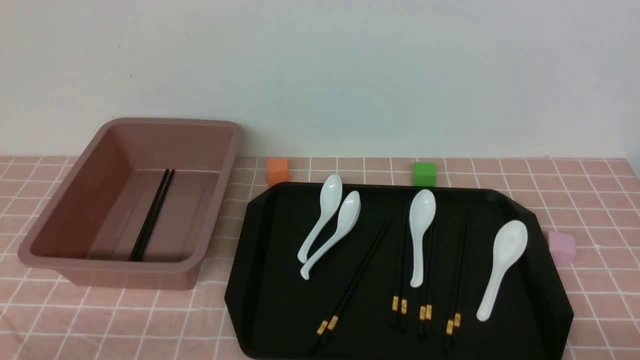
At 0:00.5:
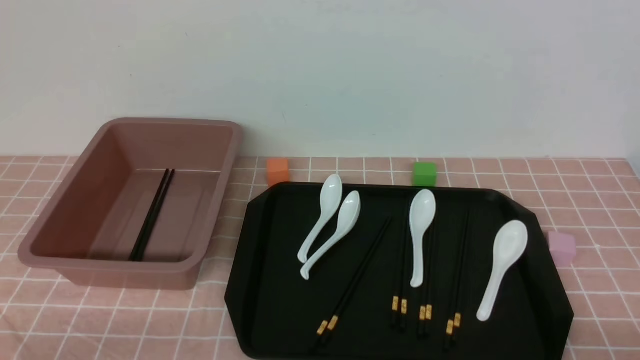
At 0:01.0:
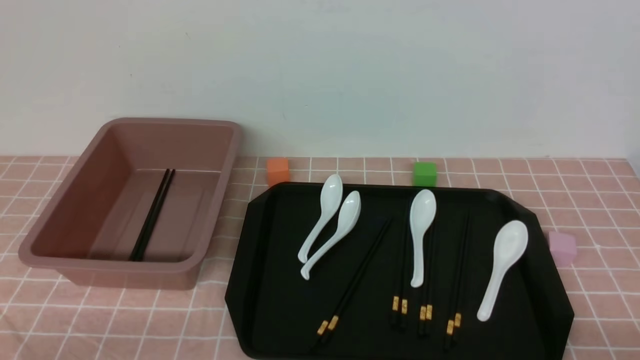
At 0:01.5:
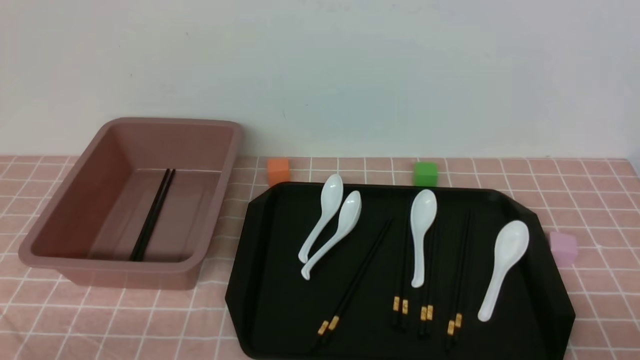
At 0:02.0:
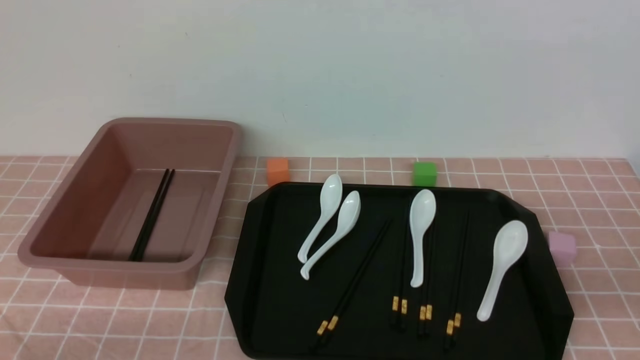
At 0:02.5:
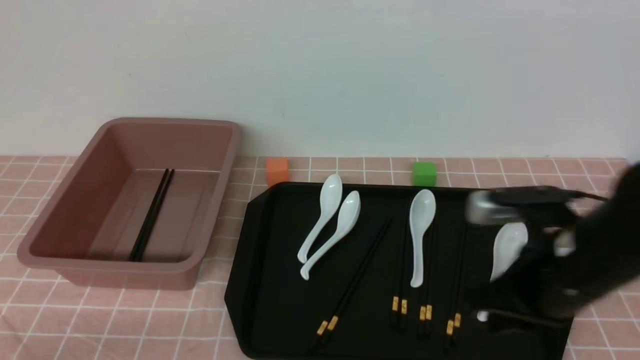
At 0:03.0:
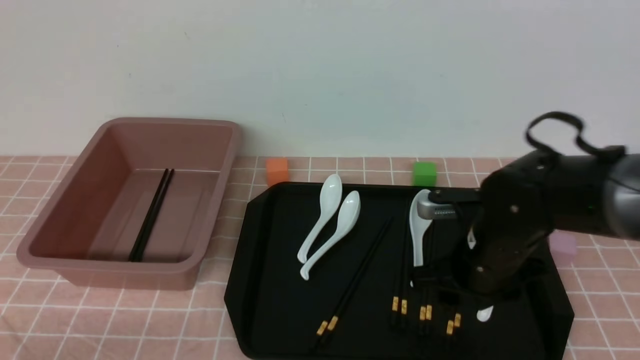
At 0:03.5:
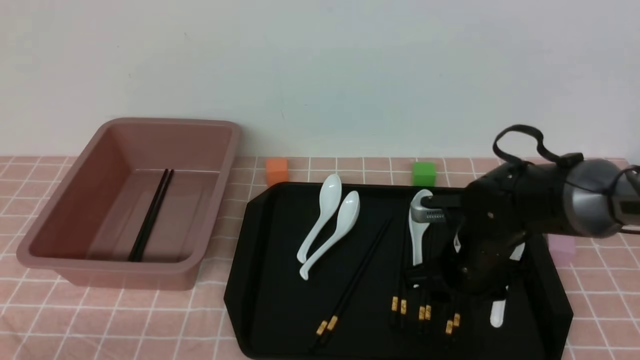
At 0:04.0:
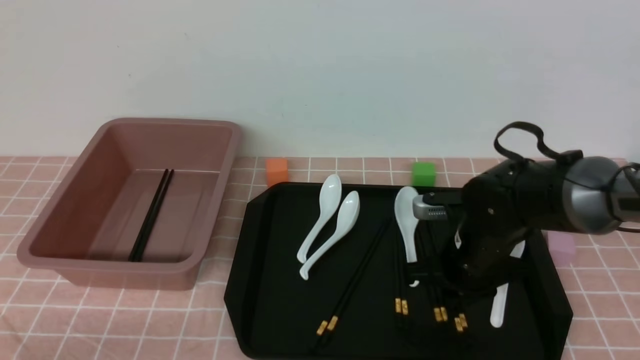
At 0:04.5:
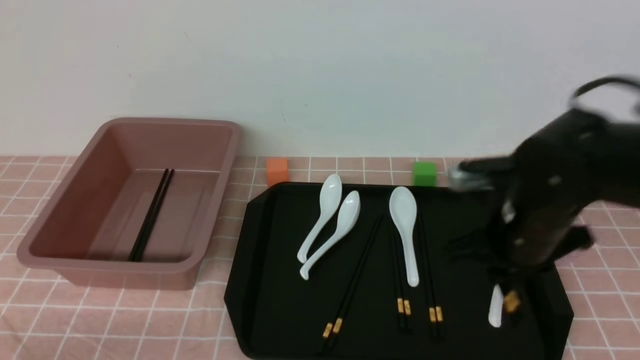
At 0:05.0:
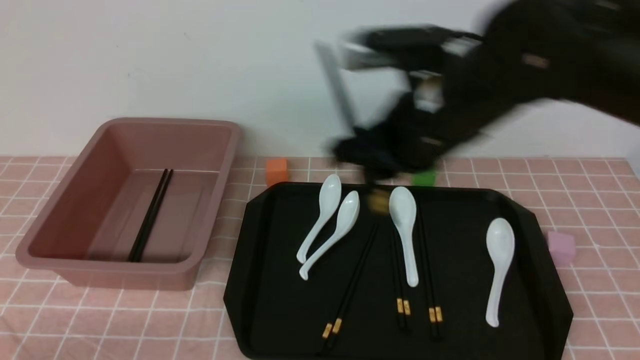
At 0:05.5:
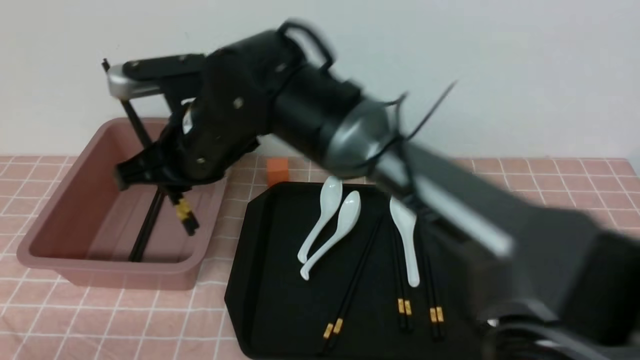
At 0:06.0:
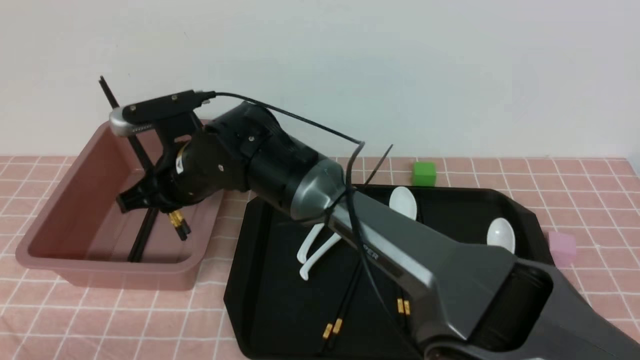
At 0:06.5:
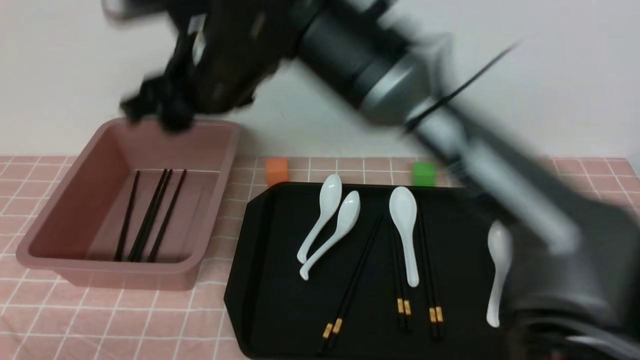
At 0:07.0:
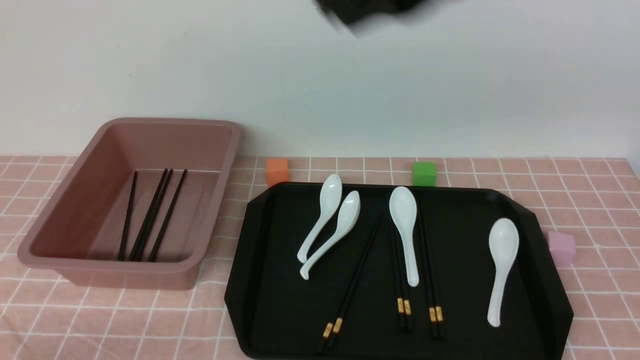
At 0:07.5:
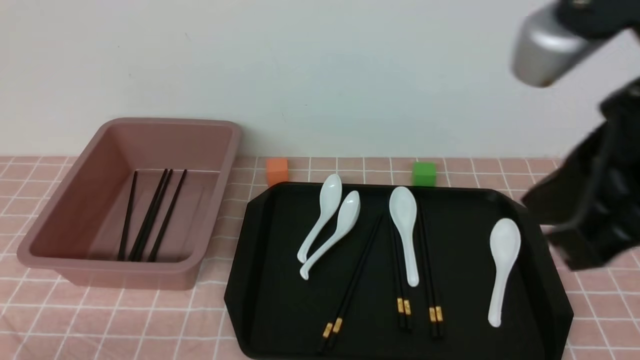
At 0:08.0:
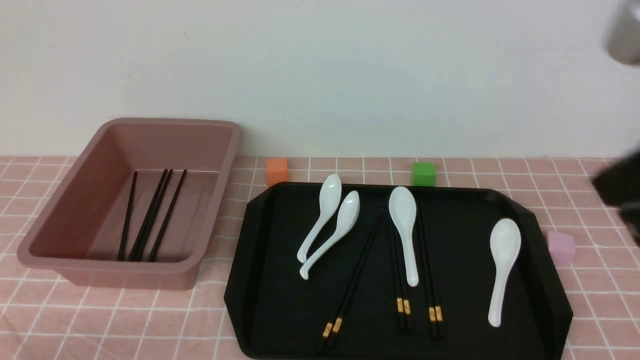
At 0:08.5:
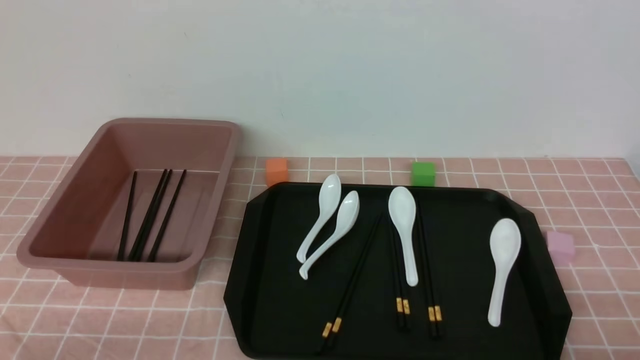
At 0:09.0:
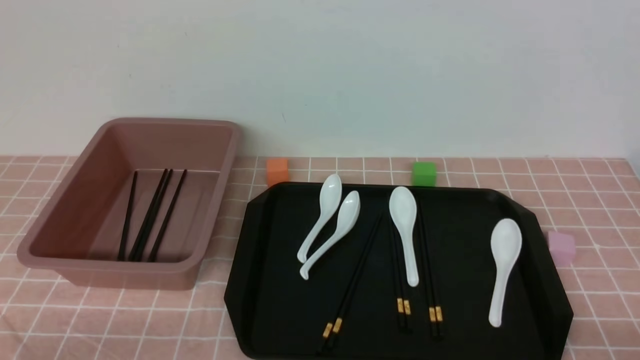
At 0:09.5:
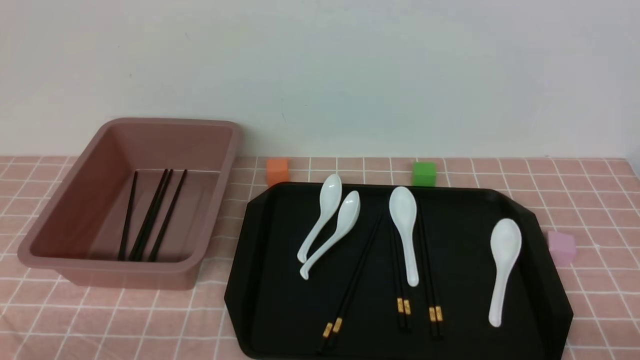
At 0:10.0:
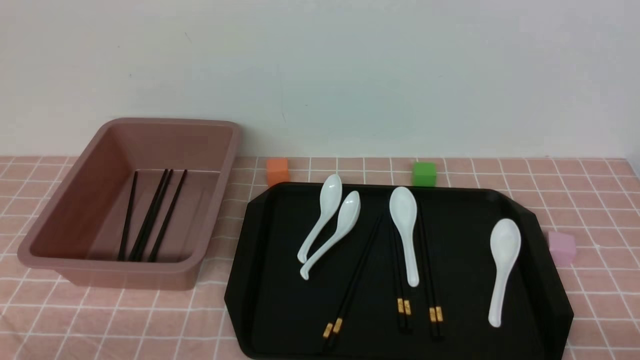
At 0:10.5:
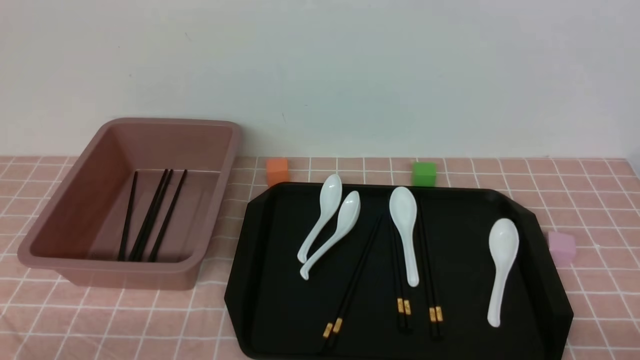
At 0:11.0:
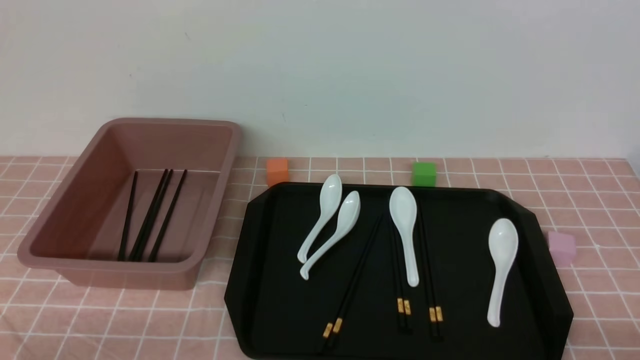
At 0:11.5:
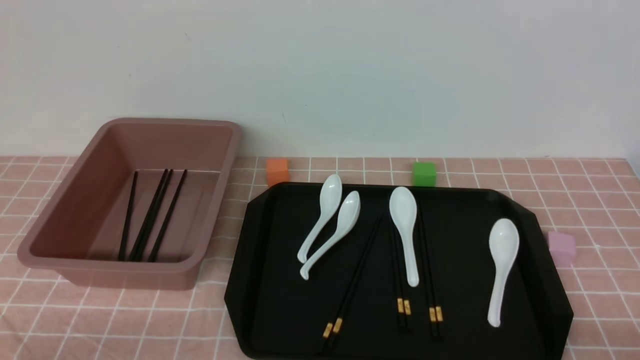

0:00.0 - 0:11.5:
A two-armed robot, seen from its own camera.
Step, 0:00.0 - 0:04.0: use the right arm to grab a pair of chopsticks.
Step, 0:04.5 - 0:06.0: use the right arm to put the chopsticks into the lunch box.
0:00.0 - 0:02.0: The right gripper goes approximately 15 cm upward and forward, and closes.
0:02.0 - 0:04.0: The right gripper shifts some 25 cm forward, downward and to the left, and opens, then closes again.
0:04.0 - 0:06.0: The right gripper heads to the left, covering some 30 cm.
0:06.0 - 0:07.5: The right gripper heads to the right, backward and upward, covering roughly 40 cm, and closes its fingers.
0:07.5 - 0:09.5: The right gripper heads downward and to the right, covering some 30 cm.
0:09.5 - 0:11.5: Neither gripper changes place.

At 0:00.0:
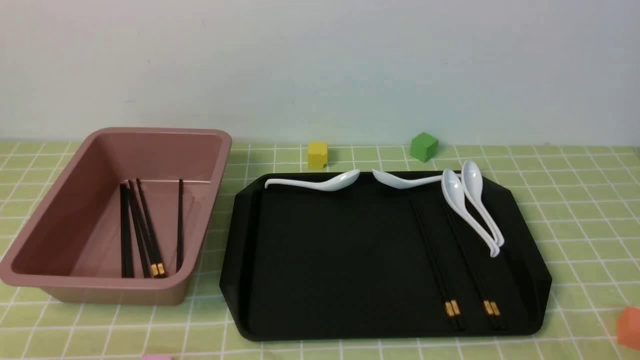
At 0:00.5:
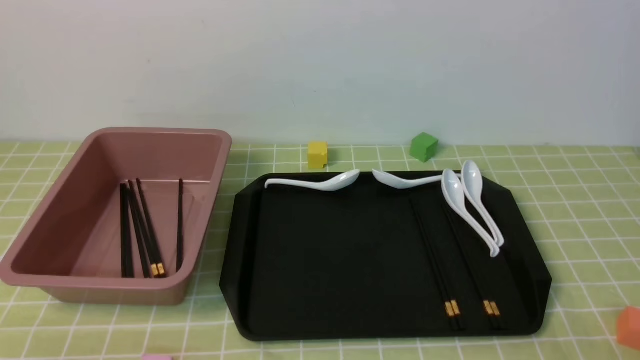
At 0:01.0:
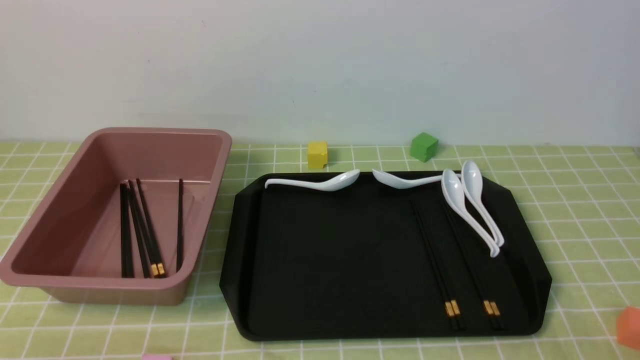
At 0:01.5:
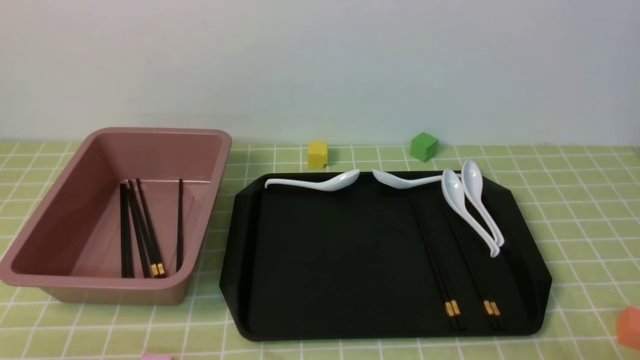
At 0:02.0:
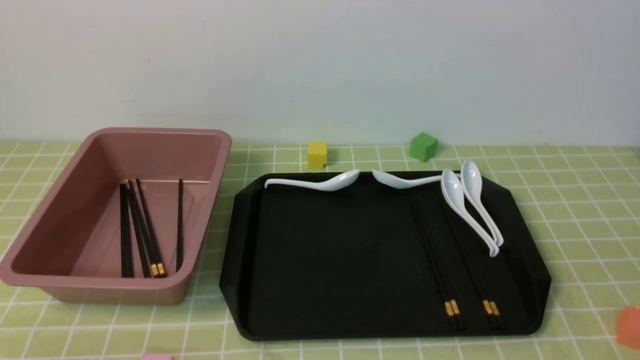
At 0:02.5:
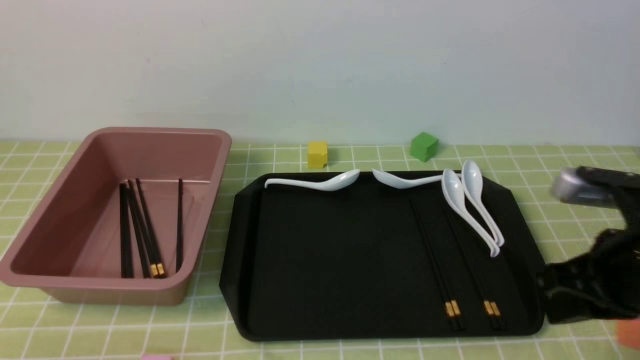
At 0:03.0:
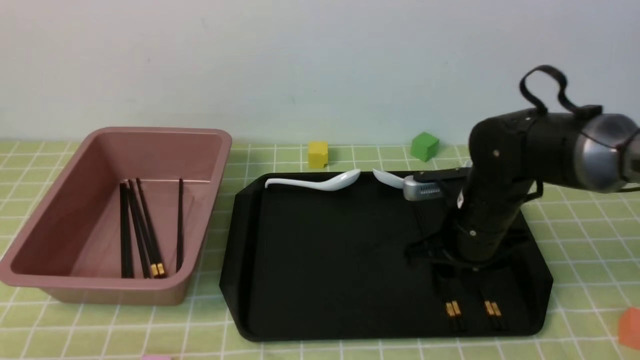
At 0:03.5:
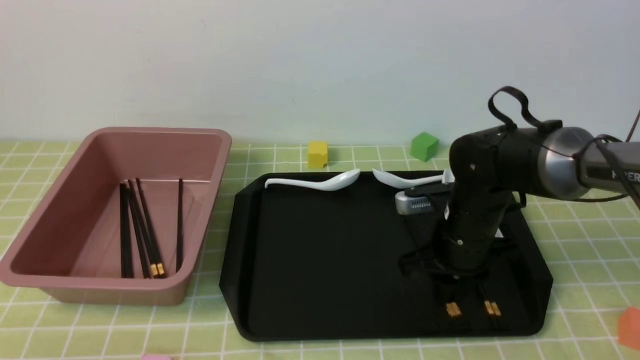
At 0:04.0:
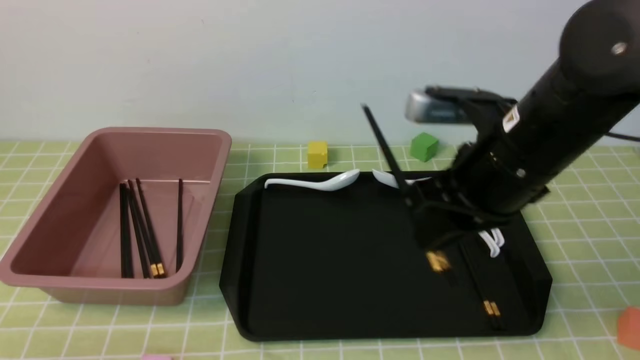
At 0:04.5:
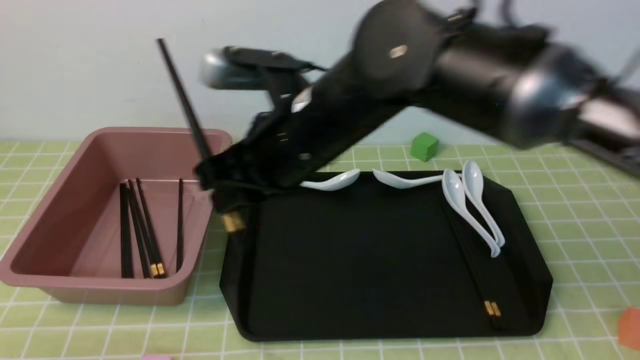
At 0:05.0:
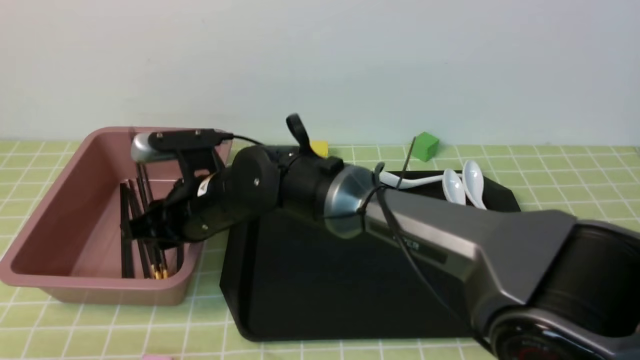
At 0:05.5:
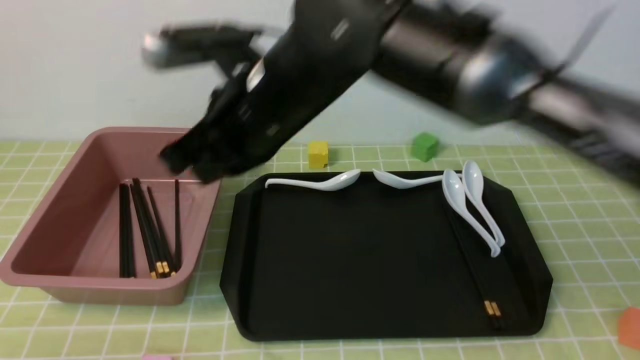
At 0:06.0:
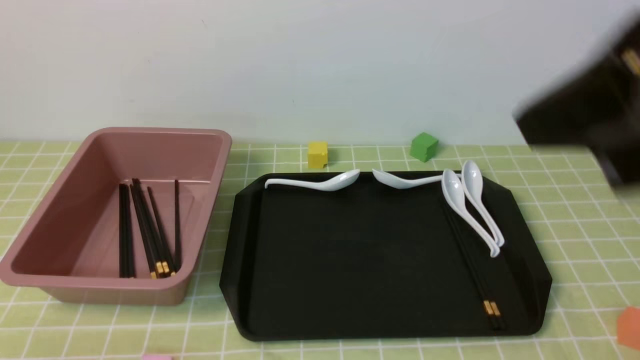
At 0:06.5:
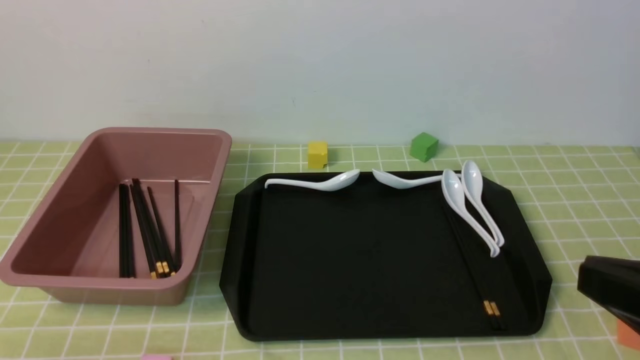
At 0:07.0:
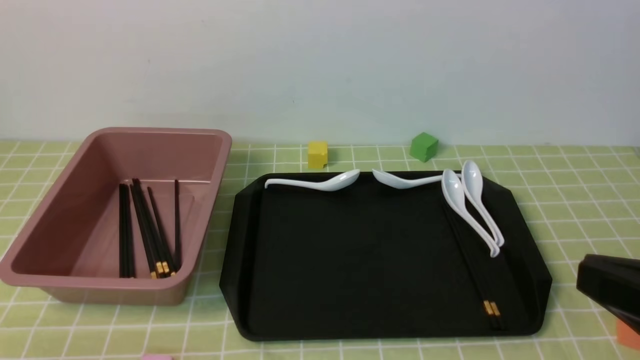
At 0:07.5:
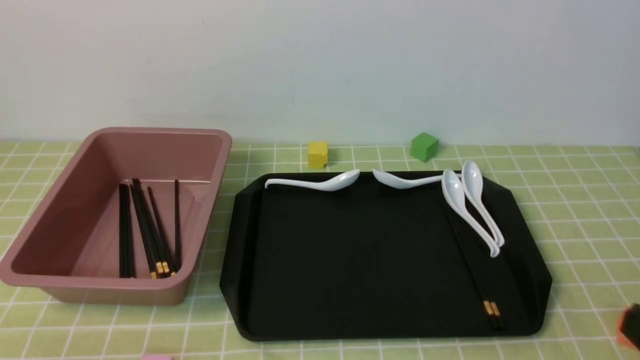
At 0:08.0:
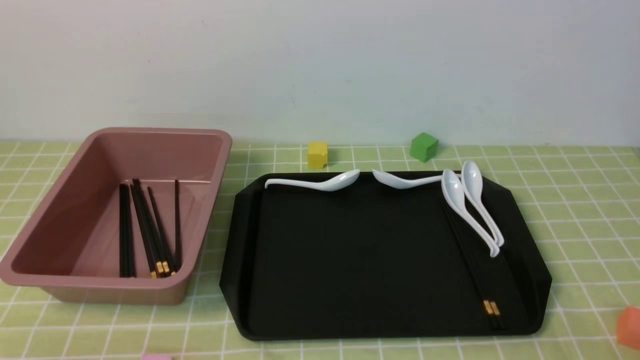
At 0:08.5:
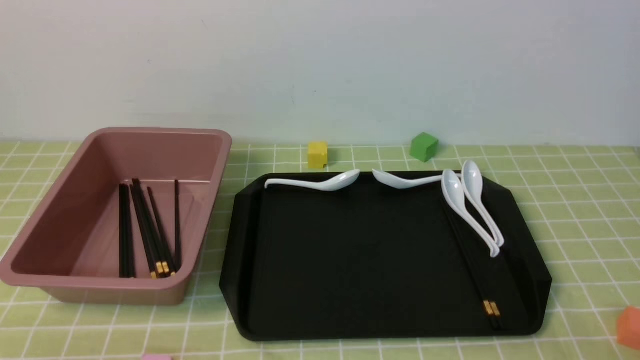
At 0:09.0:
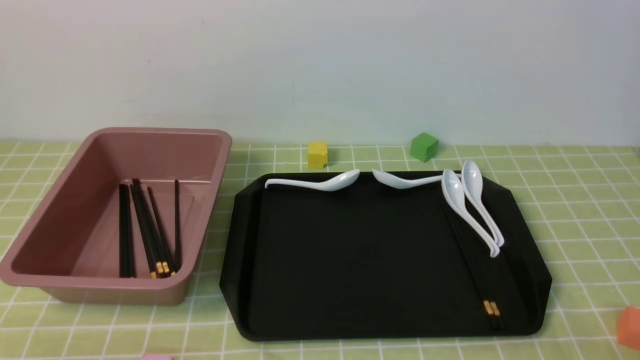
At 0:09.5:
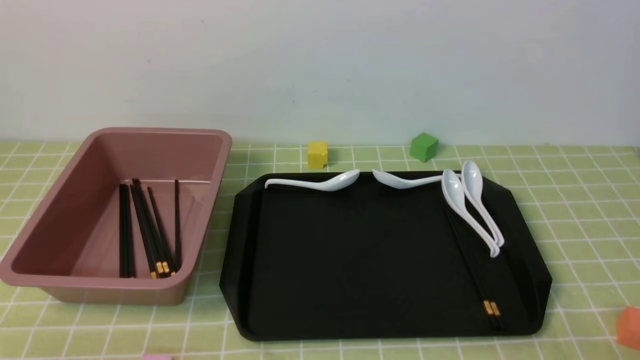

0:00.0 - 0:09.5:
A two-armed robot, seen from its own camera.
Step, 0:00.0 - 0:03.5: use the right arm to grab a pair of chopsticks.
Step, 0:04.0 - 0:05.0: use the right arm to put the chopsticks into the lunch box.
0:02.0 - 0:04.0: The right gripper shifts about 25 cm forward and to the left, and opens, then closes again.
0:04.0 - 0:05.5: The right gripper moves to the left and upward, approximately 15 cm, and closes up.
0:05.5 - 0:07.5: The right gripper moves to the right, backward and downward, about 40 cm.
